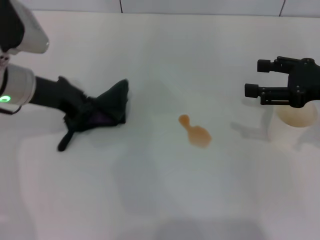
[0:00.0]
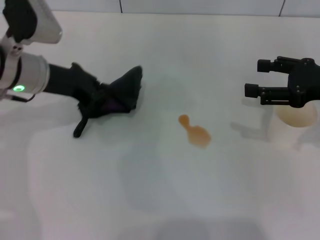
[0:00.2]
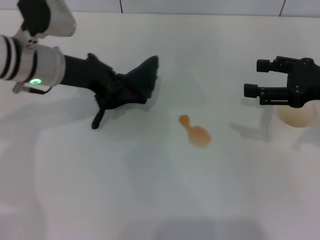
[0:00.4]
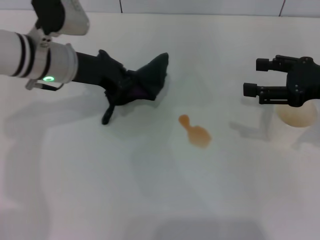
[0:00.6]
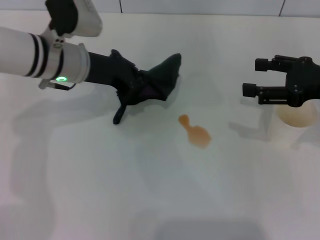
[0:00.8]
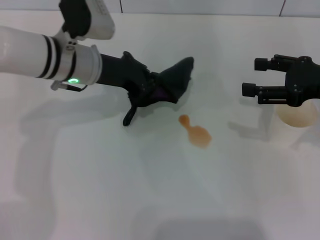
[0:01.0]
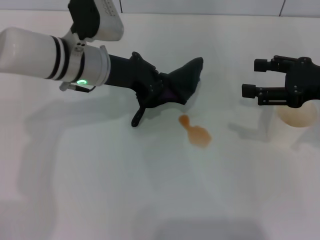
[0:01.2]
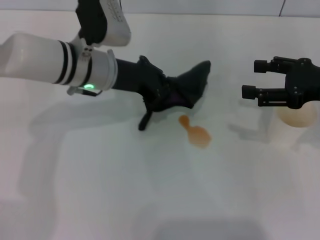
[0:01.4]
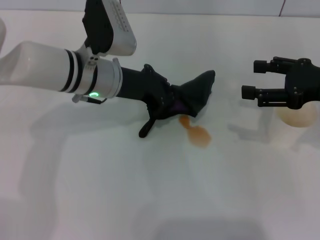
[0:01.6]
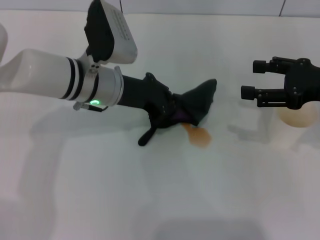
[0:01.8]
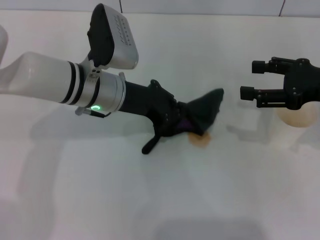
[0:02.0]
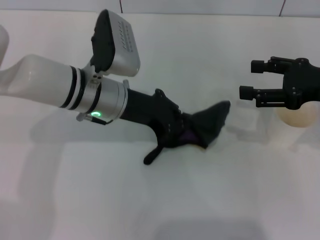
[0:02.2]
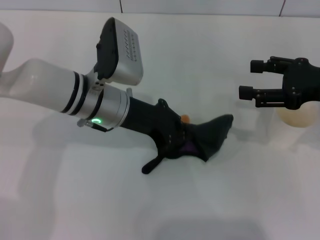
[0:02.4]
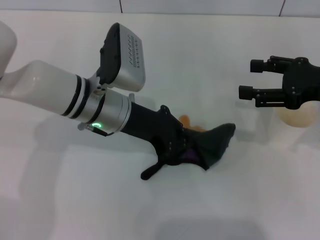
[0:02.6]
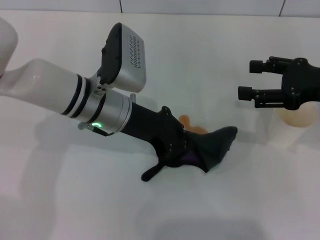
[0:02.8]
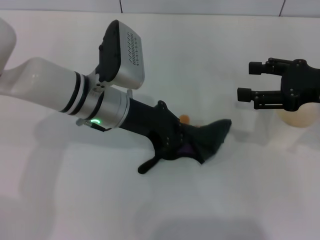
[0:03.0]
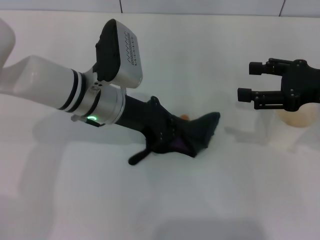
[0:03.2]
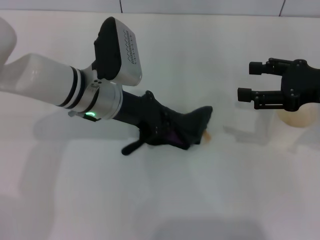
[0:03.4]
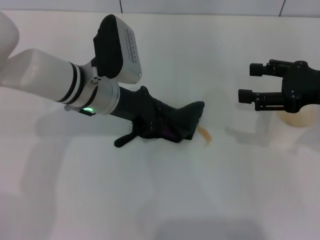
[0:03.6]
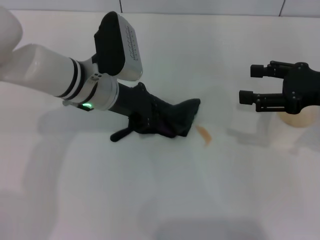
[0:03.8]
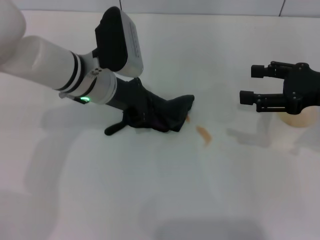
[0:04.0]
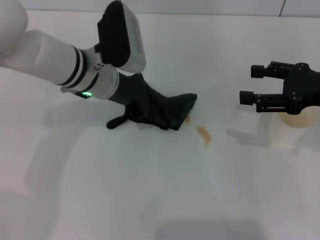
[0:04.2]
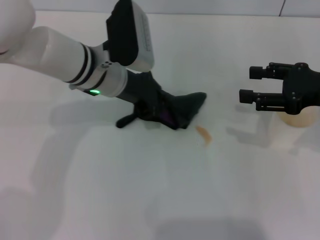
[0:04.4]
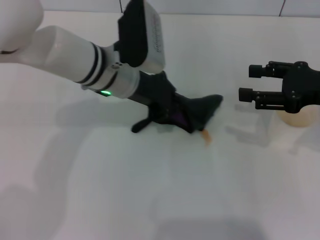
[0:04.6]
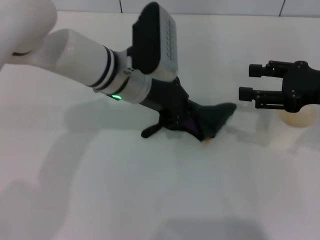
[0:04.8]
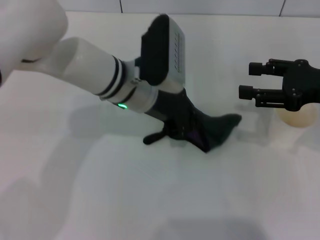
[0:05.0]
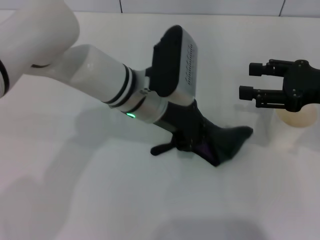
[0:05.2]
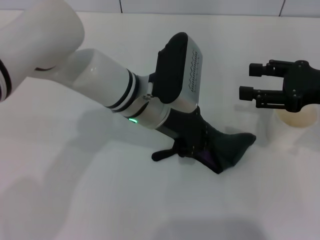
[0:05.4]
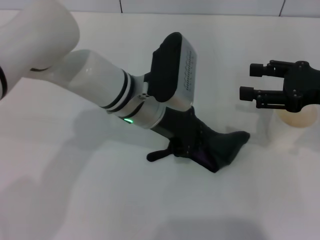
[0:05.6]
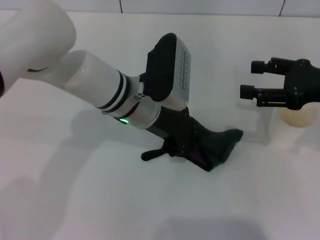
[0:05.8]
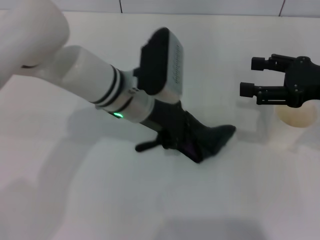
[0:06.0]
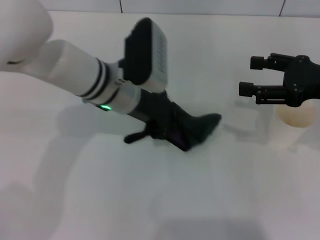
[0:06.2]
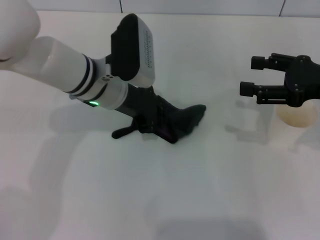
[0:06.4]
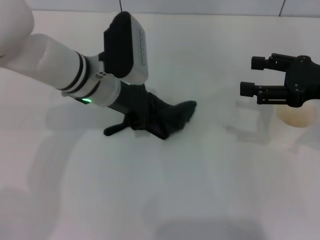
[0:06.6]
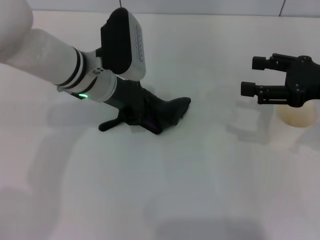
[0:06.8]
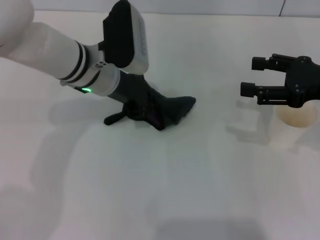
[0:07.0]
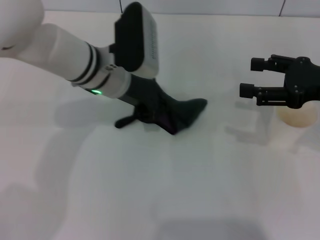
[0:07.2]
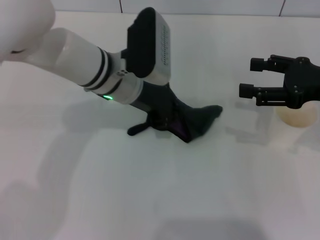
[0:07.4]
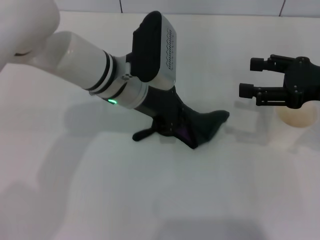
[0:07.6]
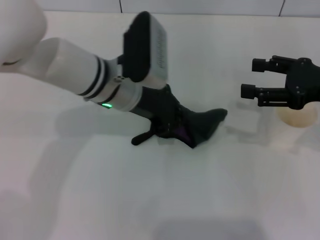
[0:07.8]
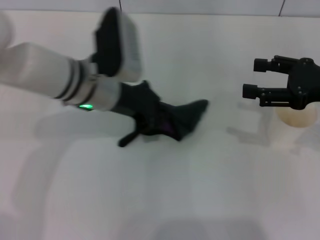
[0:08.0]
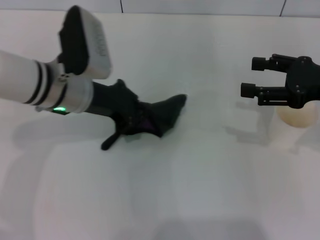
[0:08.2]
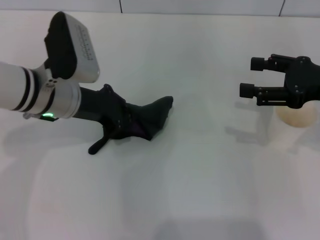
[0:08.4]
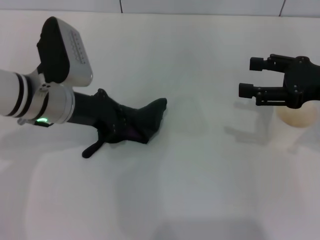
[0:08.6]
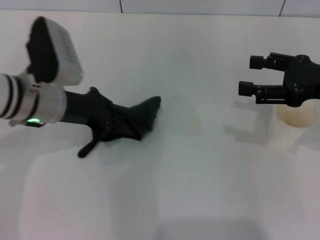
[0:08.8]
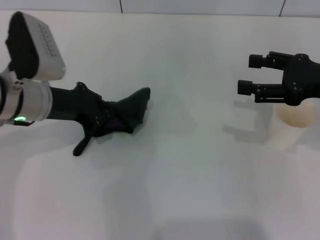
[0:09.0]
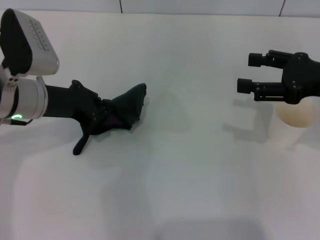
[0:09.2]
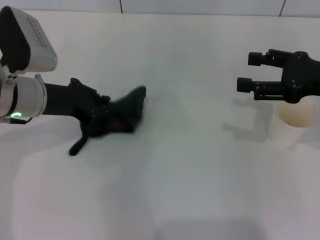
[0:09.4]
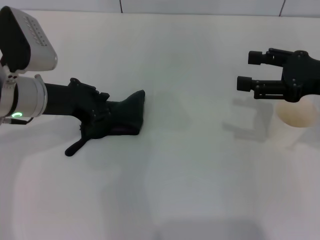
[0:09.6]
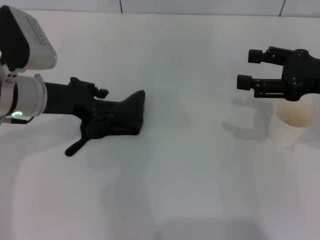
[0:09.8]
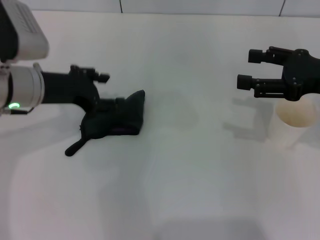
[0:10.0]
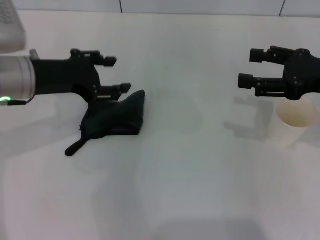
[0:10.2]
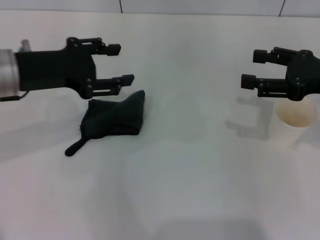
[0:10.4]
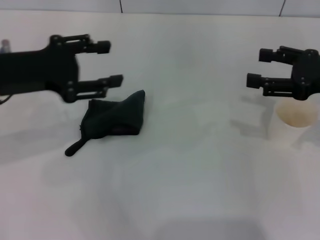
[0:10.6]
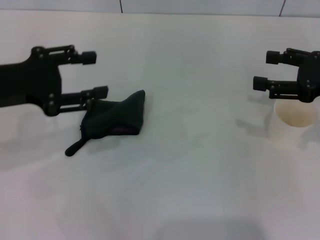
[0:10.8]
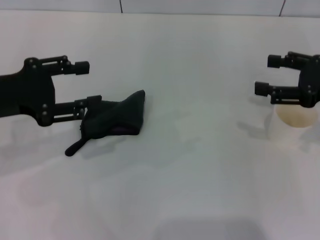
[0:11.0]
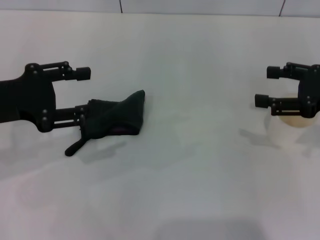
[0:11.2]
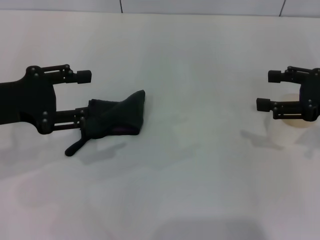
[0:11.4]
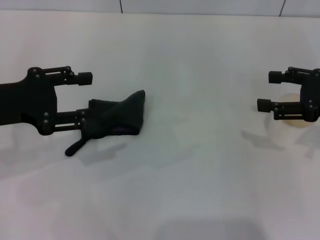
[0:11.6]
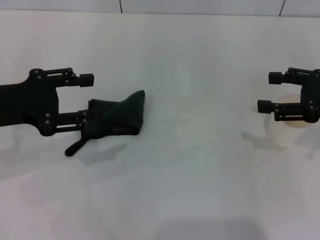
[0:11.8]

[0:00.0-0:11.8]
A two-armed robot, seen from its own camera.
Step, 0:00.0 to 0:08.2: Wipe the stains off the table with the left gripper.
Step, 0:08.4 to 0:09.8: Place the rag on the table with the left gripper.
0:00.0 to 0:01.4: The left gripper moves to the right, about 10 cm.
0:06.0 to 0:07.4: The grippers stay close to where they were, moving slightly.
0:07.4 to 0:08.8: The left gripper heads to the left, covering approximately 10 cm.
0:08.8 to 0:10.4: The left gripper travels upward by approximately 5 cm, and opens.
0:10.4 to 0:11.8: The left gripper ends up some 5 cm from where it was.
